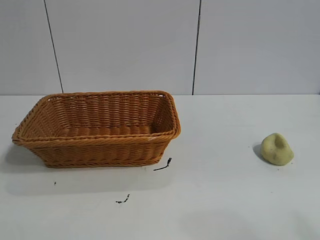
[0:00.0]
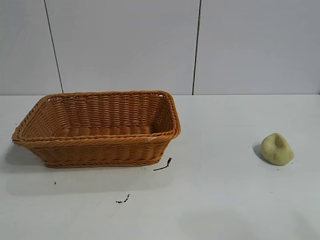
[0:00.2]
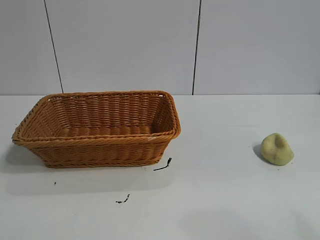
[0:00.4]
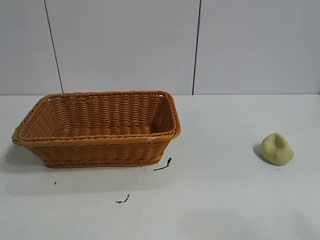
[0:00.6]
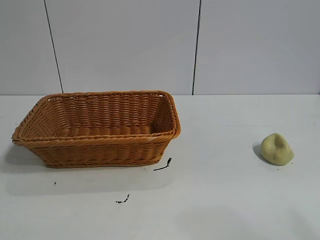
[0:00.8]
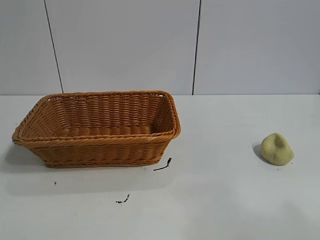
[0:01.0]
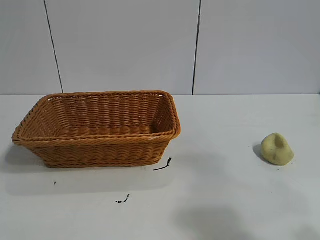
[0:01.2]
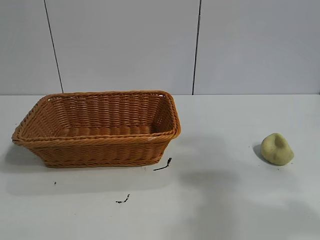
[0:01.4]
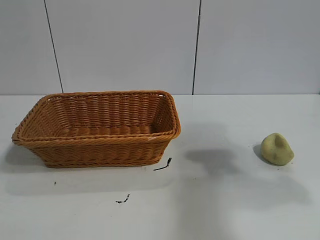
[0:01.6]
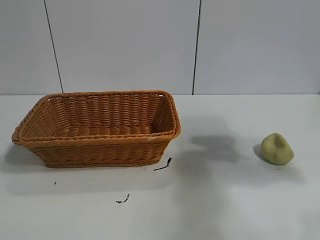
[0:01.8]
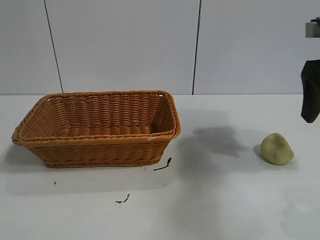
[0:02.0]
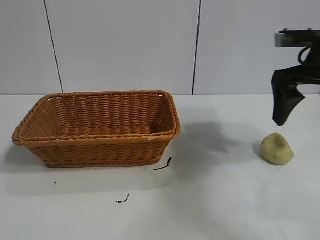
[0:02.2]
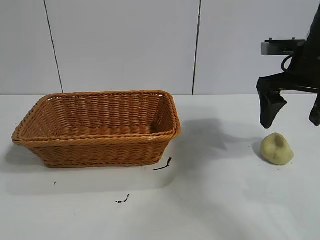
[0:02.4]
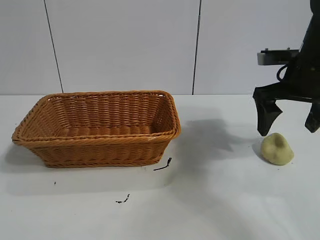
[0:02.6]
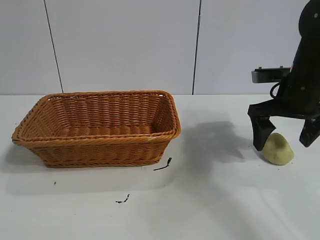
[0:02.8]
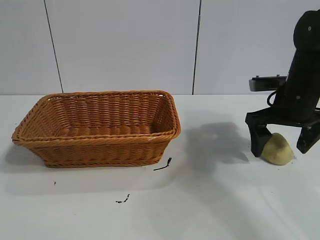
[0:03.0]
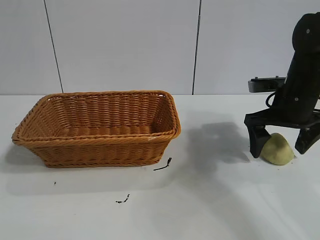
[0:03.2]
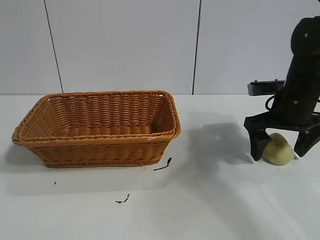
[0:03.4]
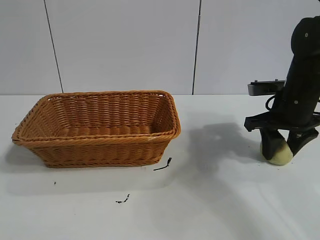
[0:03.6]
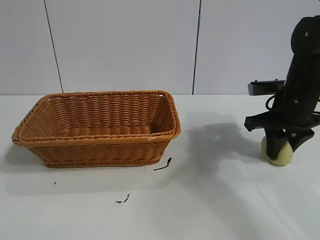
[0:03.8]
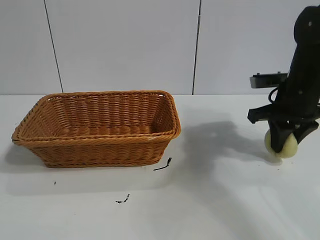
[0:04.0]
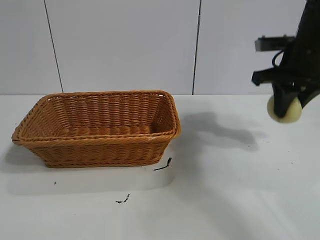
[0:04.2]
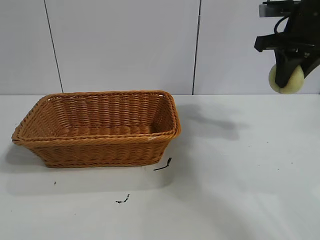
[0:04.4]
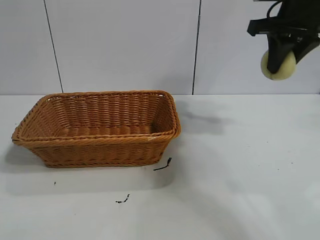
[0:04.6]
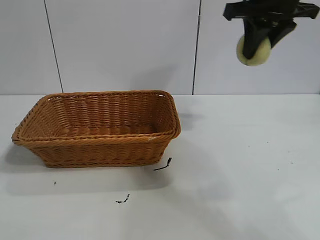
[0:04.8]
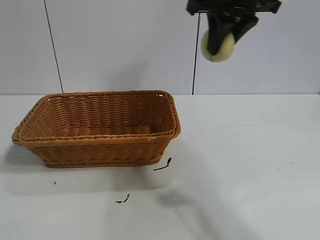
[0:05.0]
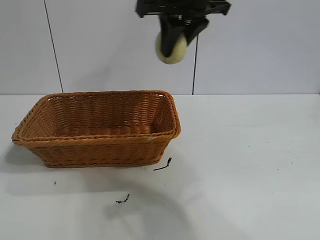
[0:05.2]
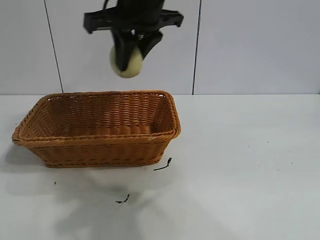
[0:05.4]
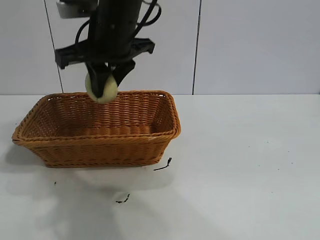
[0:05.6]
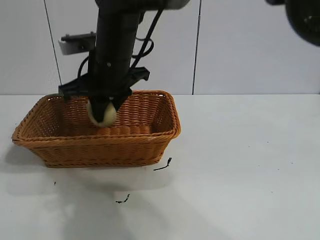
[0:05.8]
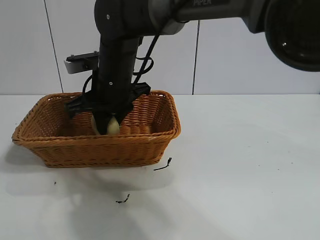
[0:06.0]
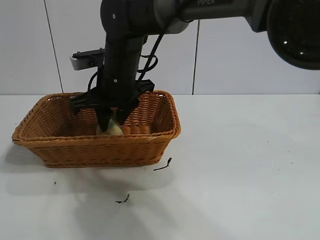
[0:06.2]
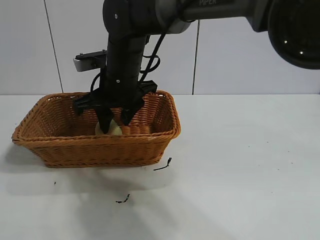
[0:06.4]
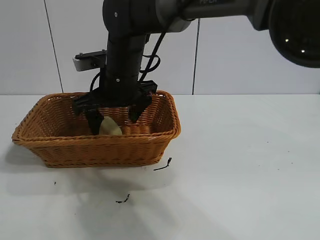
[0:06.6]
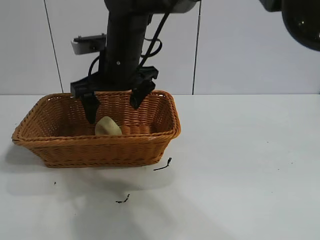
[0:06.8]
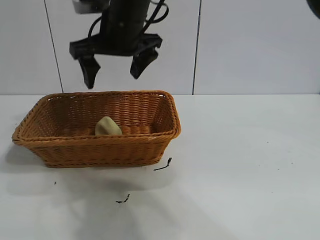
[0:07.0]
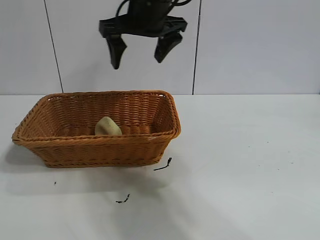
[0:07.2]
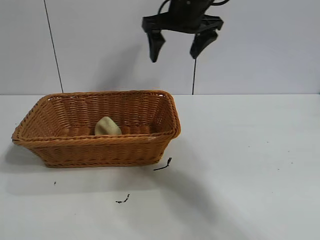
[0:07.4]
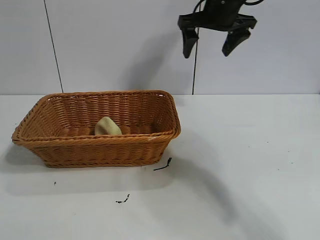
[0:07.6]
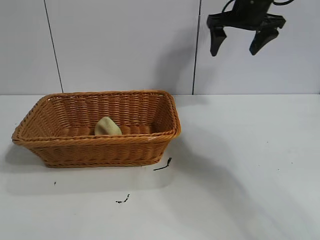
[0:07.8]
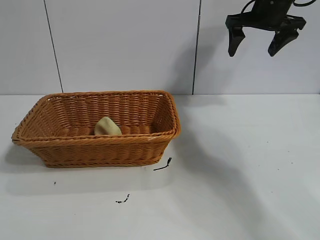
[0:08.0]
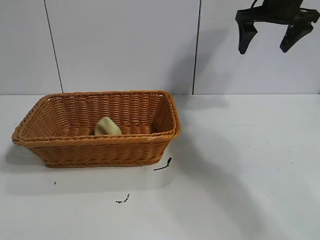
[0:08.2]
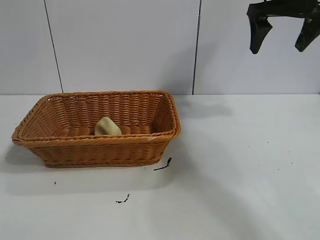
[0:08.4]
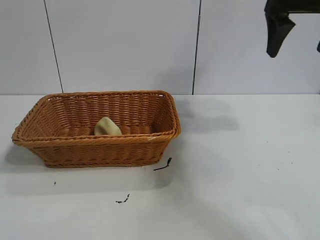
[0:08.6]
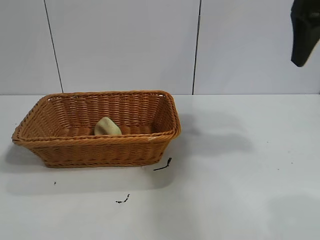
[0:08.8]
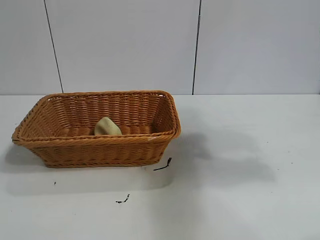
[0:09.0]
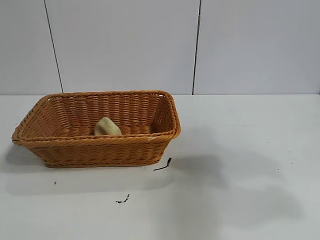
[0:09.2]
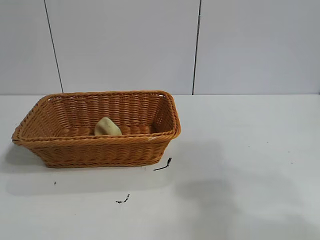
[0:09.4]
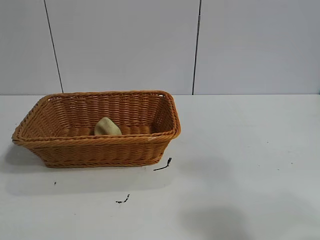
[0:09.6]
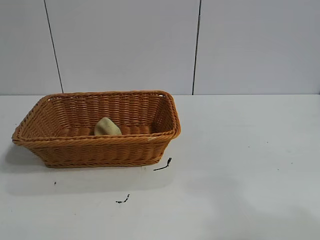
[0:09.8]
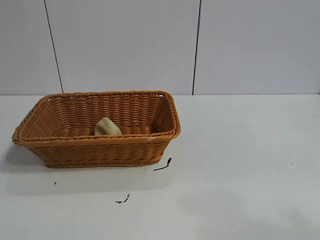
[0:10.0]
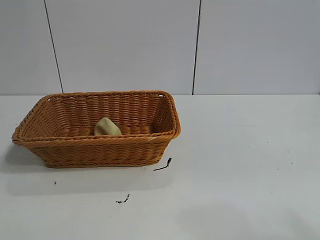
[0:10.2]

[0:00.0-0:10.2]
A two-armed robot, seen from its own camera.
Task of the whole recording: pick up the egg yolk pastry and put it into the basket.
Step, 0:00.8 to 0:03.6: Grasp egg yolk pastry with right gripper.
Step, 0:04.0 to 0:06.4: Place the egg yolk pastry in the basket with right gripper.
